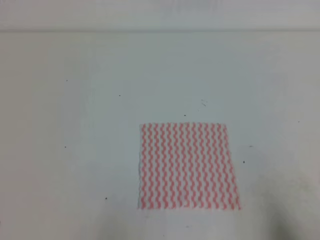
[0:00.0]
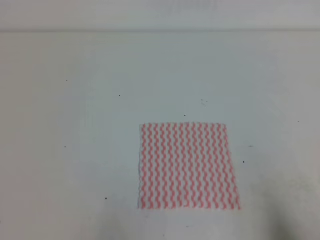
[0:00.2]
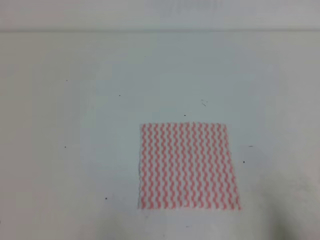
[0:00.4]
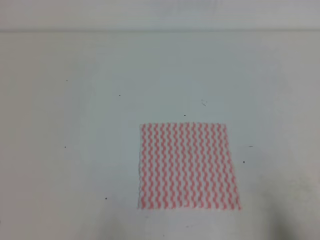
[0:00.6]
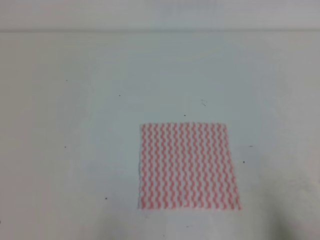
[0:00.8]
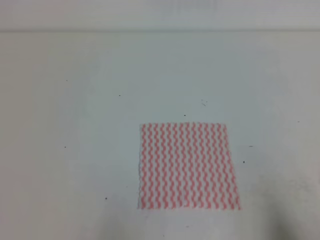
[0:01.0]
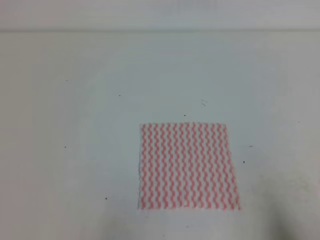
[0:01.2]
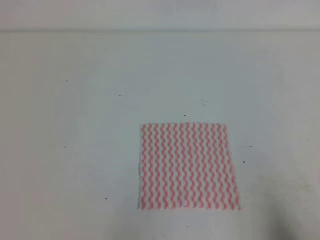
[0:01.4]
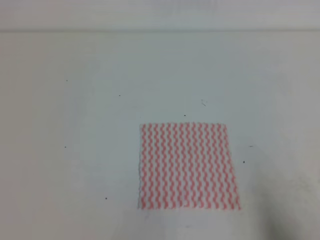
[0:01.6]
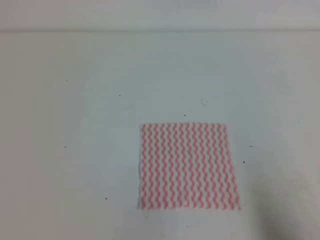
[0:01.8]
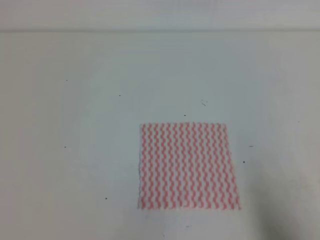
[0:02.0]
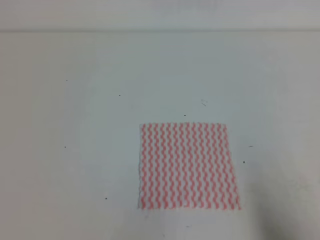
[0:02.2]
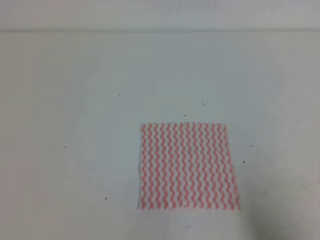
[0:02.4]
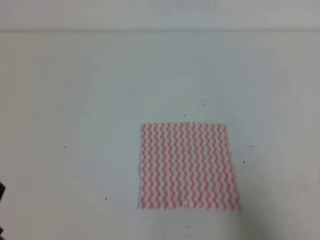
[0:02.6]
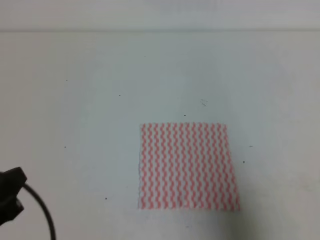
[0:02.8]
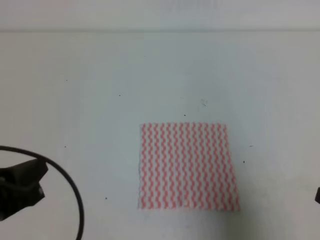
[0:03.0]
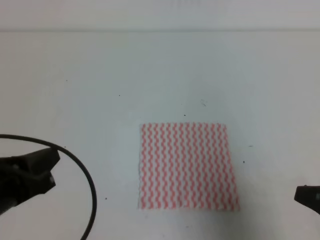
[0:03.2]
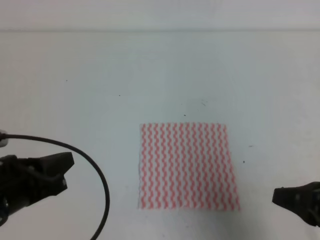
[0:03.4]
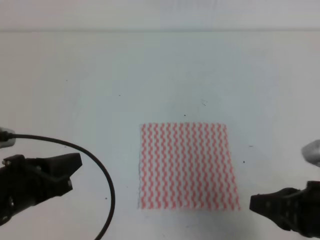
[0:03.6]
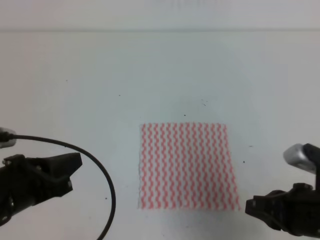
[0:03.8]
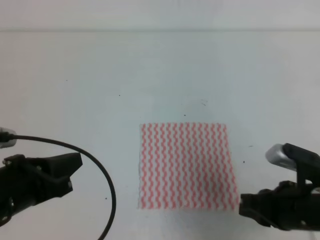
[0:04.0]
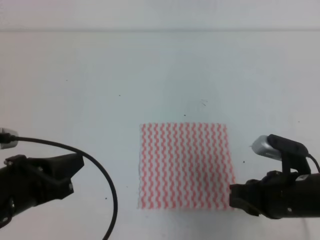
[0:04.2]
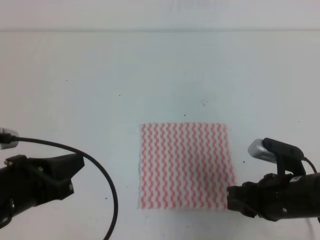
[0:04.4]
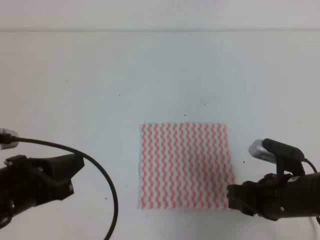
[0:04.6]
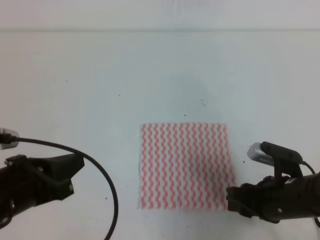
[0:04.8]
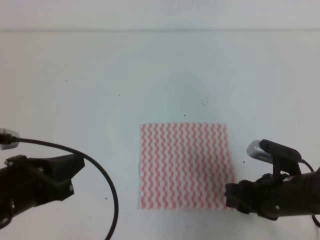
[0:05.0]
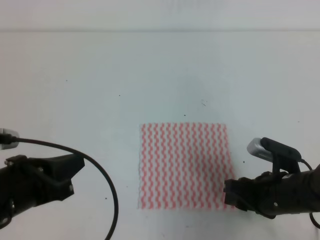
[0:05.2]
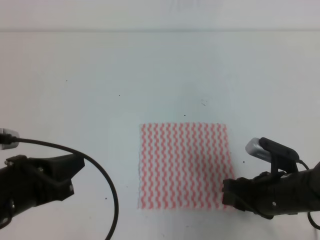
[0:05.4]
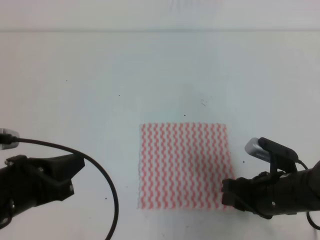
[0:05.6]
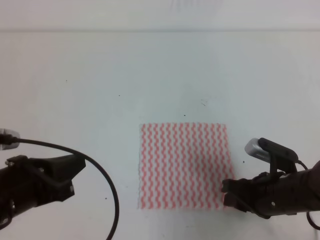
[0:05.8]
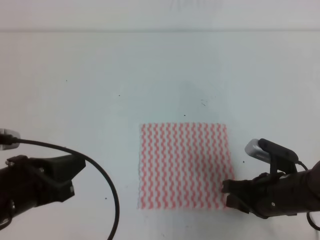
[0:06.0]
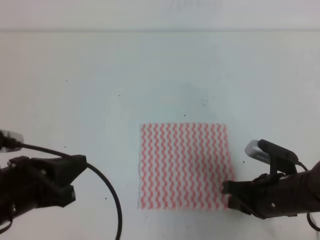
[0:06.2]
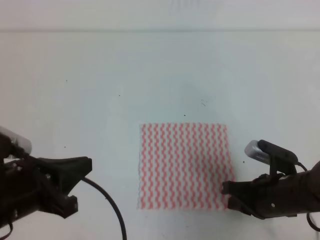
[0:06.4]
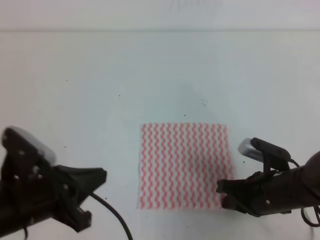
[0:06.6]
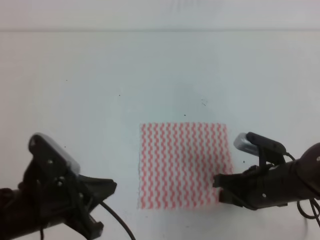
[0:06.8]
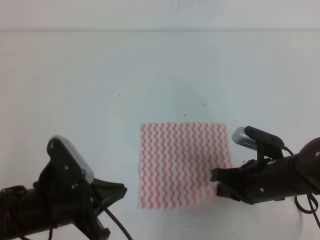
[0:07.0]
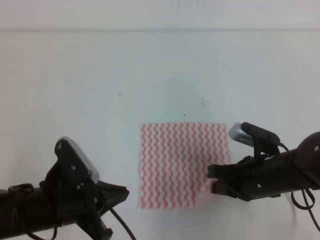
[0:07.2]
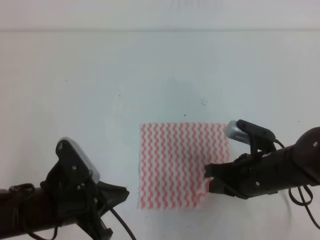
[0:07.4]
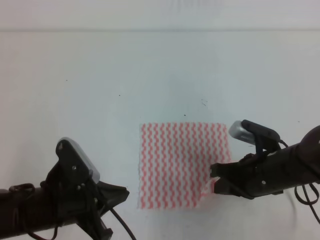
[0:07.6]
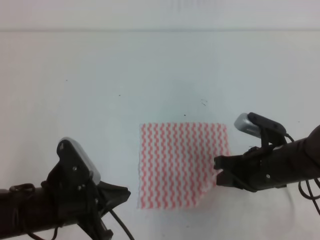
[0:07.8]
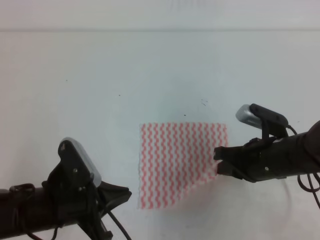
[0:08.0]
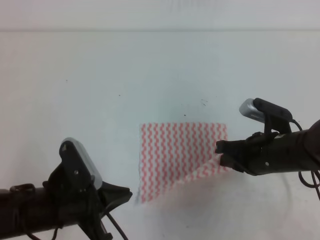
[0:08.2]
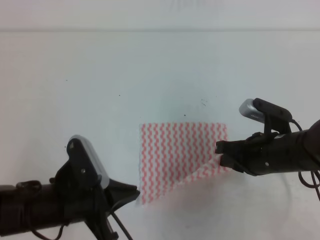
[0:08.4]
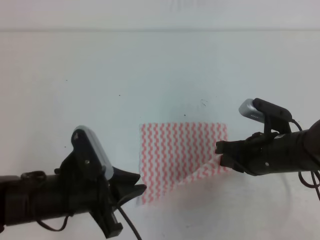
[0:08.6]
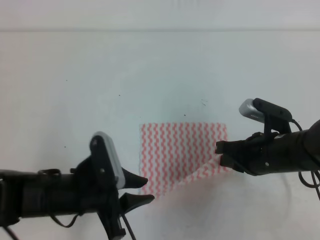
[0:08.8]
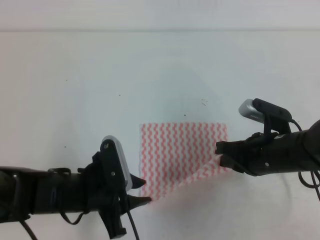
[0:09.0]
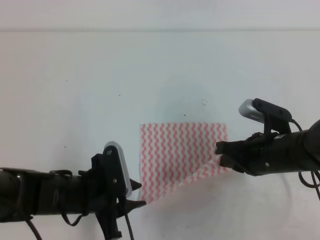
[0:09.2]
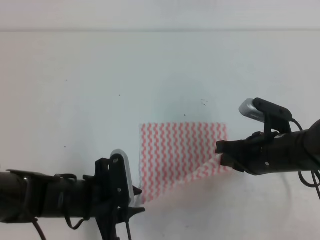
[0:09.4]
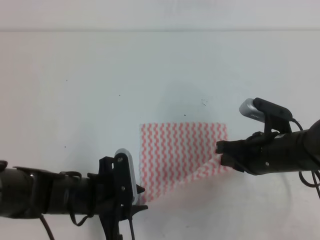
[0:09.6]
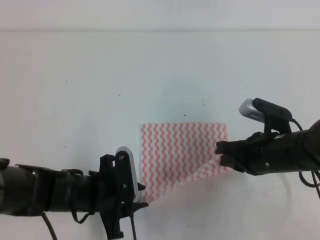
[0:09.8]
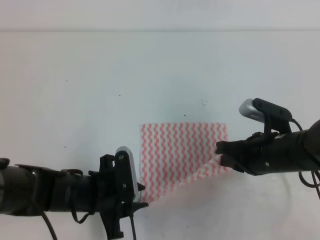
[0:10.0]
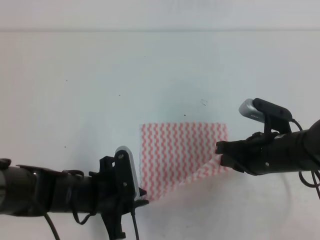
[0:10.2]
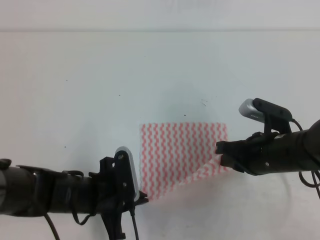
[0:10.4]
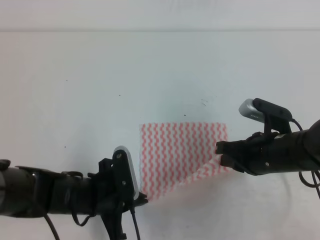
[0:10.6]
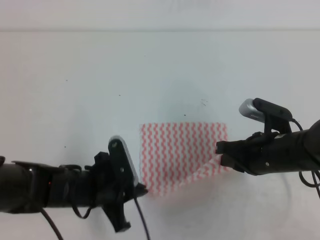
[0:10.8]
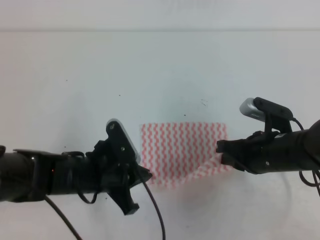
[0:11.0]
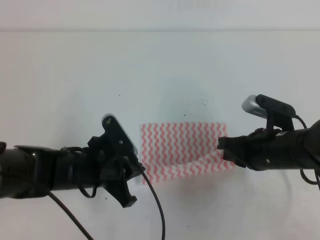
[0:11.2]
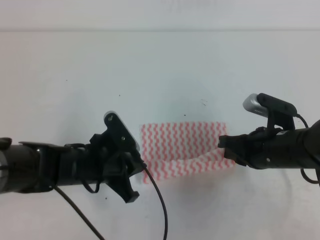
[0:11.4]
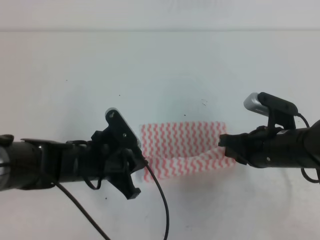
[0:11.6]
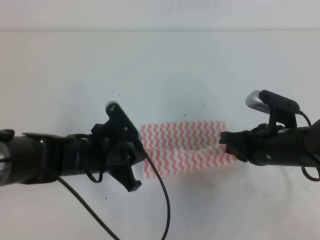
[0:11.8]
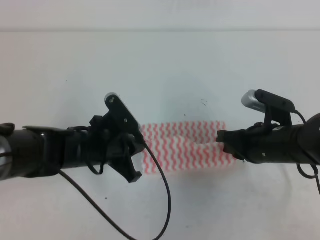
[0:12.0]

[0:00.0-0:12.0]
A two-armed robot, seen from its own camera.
0:01.6 to 0:03.0: The left gripper is displaced forward and upward by approximately 10 cm; the right gripper shifts some 10 cm upward and forward.
0:03.0 to 0:04.4: The left gripper changes place by about 5 cm; the right gripper travels to the left, forward and downward by approximately 15 cm, and opens.
0:04.4 to 0:06.0: The grippers make only small movements.
0:06.0 to 0:07.6: The right gripper ends up about 5 cm from where it was, and closes. The left gripper is displaced downward by approximately 5 cm.
0:07.6 to 0:09.0: The left gripper opens.
0:09.0 to 0:10.4: The left gripper closes its fingers.
0:10.4 to 0:12.0: The left gripper moves forward, some 5 cm.

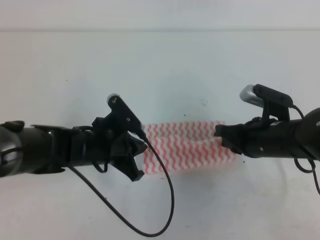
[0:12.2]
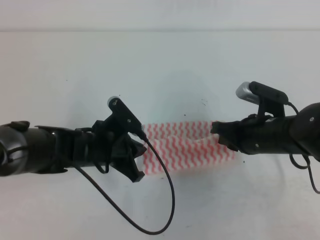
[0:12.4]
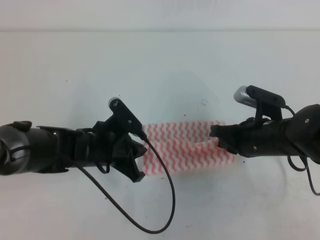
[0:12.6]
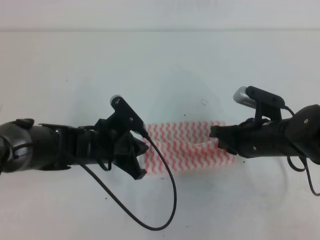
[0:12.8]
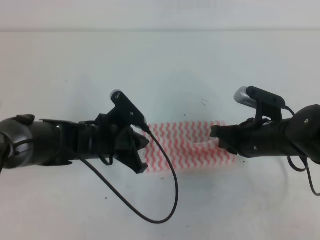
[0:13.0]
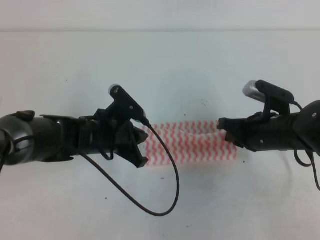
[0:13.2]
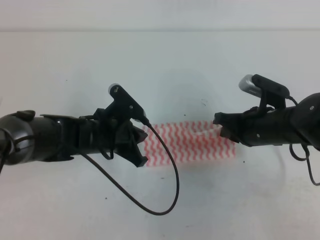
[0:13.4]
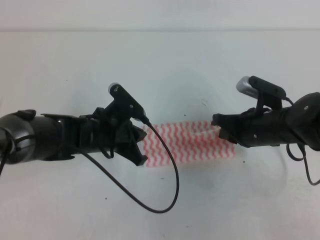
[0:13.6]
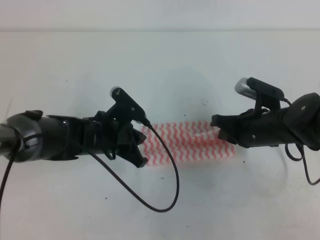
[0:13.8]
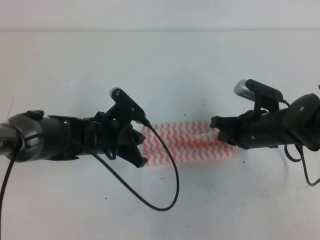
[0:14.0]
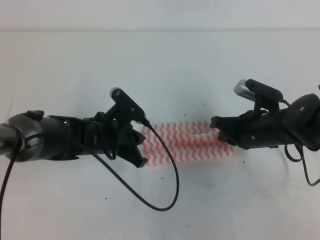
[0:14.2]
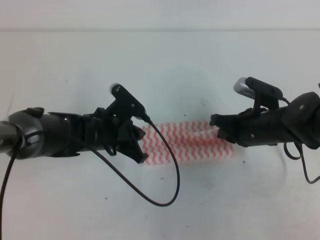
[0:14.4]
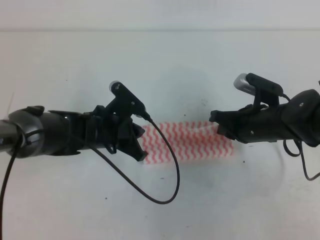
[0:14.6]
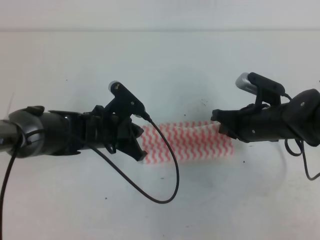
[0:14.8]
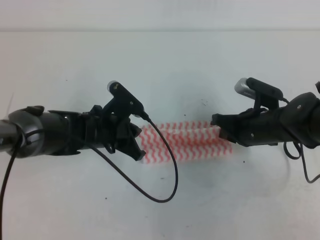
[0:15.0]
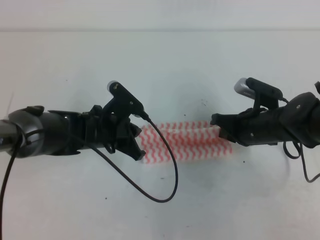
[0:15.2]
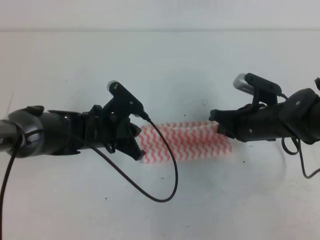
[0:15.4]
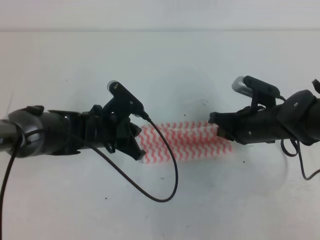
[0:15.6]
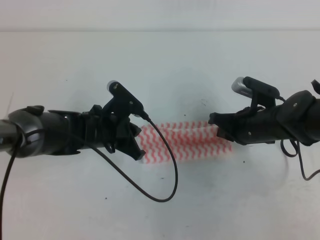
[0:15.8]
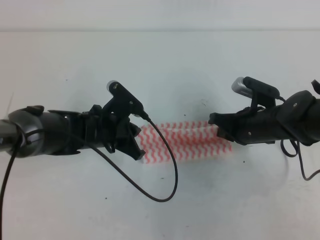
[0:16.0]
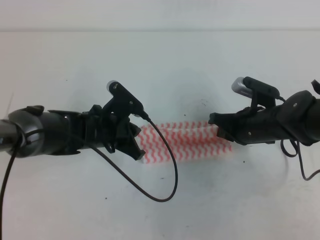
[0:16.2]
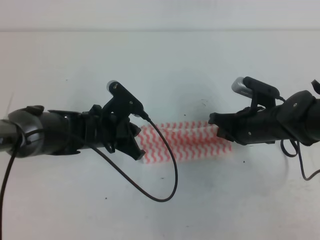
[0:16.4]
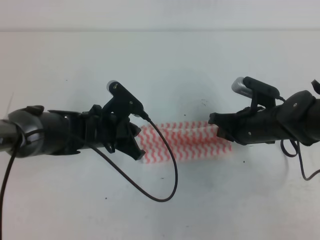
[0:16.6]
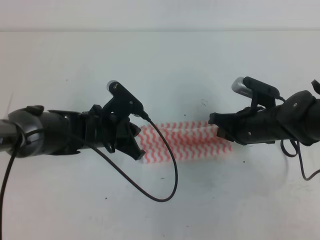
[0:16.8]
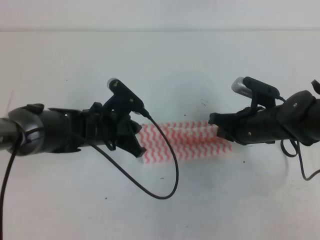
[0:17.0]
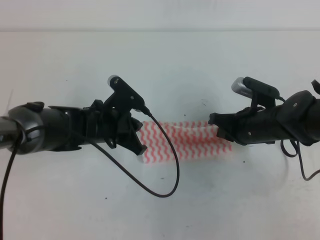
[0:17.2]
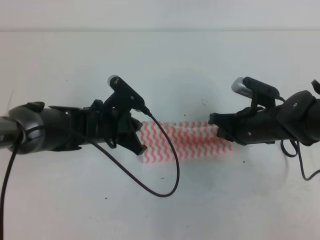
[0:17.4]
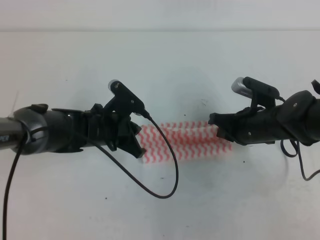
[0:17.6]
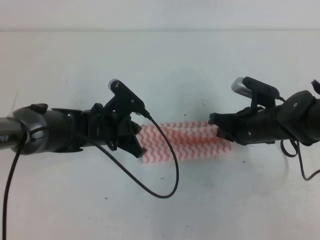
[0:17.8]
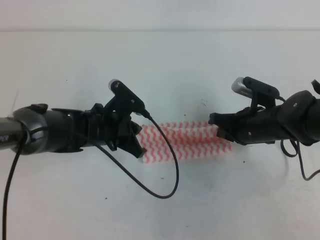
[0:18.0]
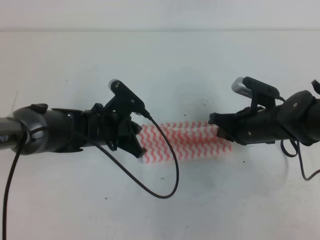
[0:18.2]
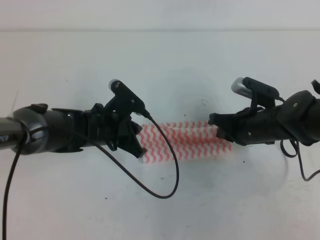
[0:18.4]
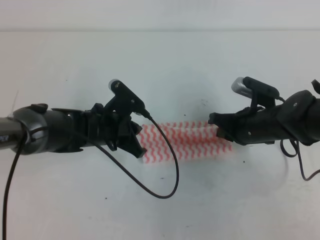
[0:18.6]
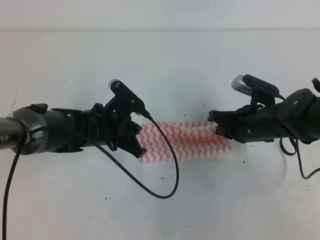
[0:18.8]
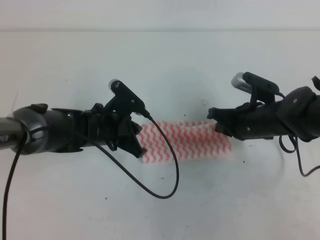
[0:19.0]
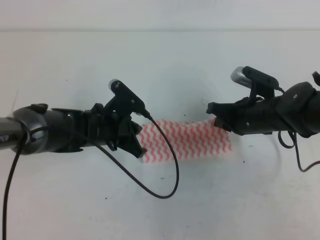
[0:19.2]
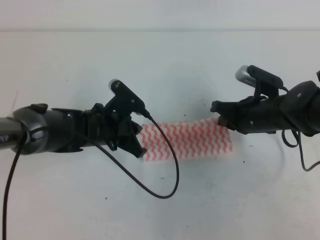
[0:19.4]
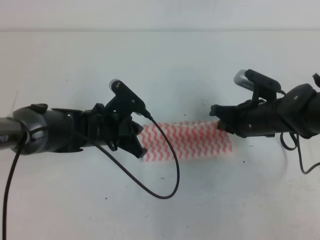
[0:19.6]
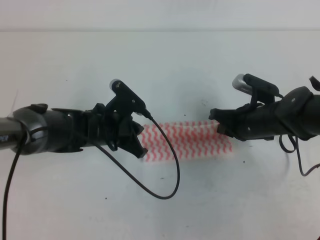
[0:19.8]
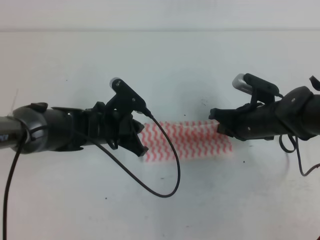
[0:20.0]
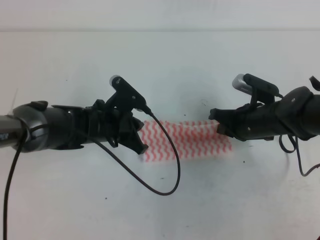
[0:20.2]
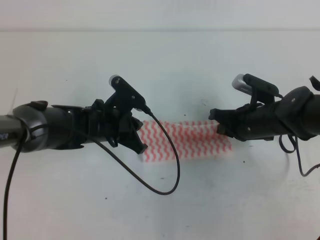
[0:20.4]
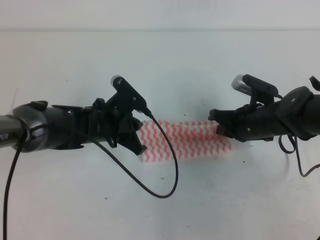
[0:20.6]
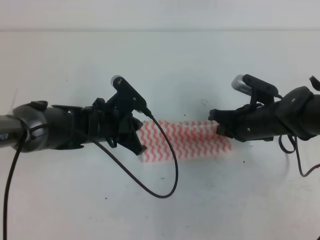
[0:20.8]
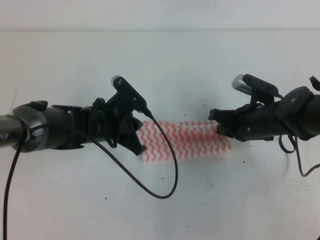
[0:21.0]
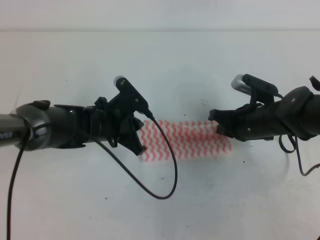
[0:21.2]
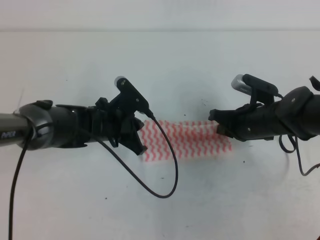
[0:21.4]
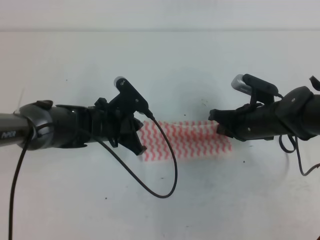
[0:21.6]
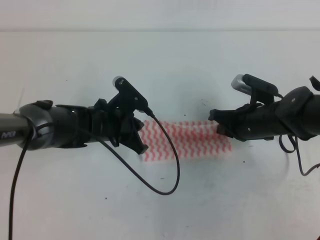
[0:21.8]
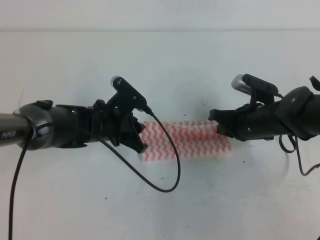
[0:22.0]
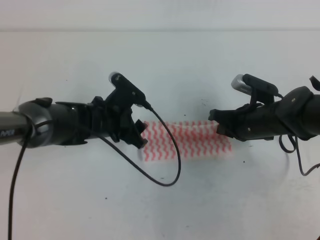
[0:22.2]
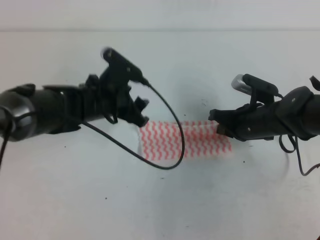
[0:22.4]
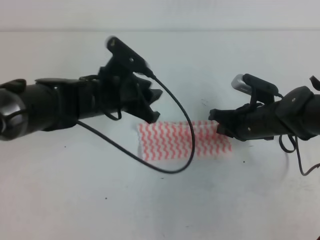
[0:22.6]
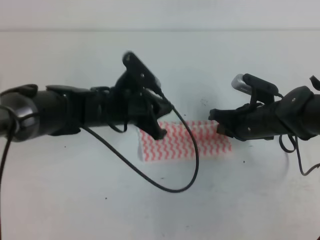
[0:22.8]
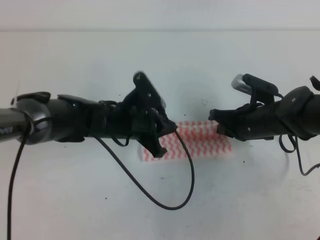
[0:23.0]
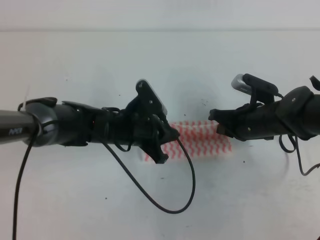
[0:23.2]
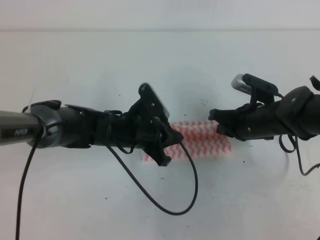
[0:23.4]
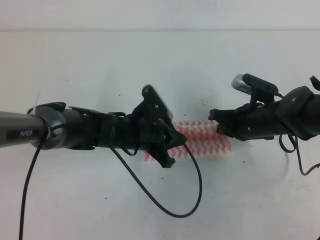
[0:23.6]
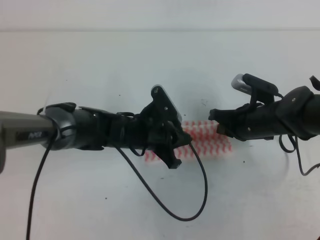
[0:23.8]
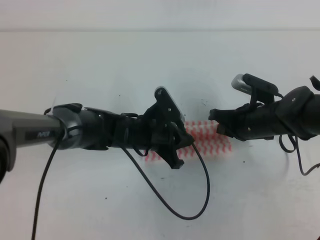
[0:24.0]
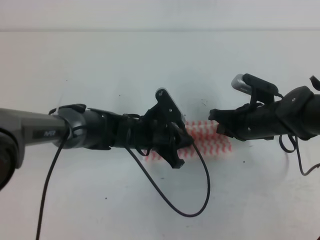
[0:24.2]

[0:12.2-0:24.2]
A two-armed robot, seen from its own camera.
0:12.2 to 0:15.2: The grippers make only small movements.
0:15.2 to 0:18.2: Both grippers stay about where they are.
0:18.2 to 0:19.8: The grippers move only a little.
0:19.8 to 0:21.2: Neither gripper changes place.
0:21.2 to 0:22.6: The left gripper is displaced upward by about 5 cm, and opens.
0:22.6 to 0:24.2: The left gripper moves downward and to the right, roughly 10 cm, and closes its fingers.
